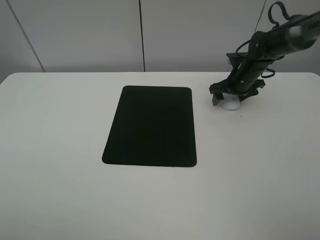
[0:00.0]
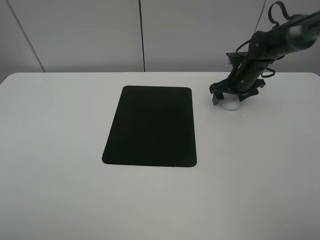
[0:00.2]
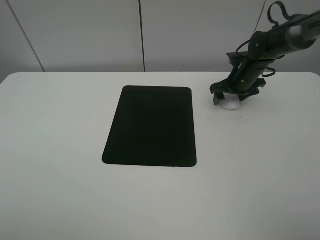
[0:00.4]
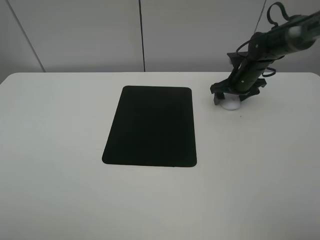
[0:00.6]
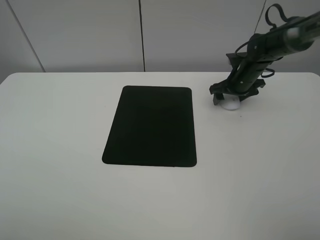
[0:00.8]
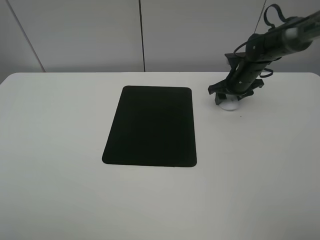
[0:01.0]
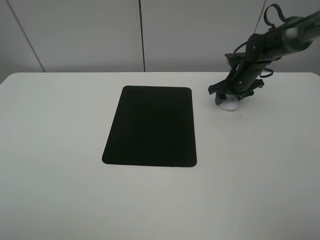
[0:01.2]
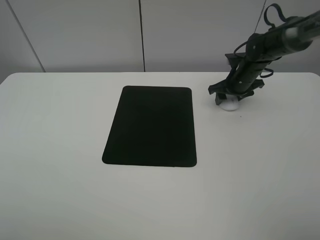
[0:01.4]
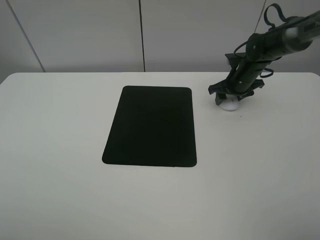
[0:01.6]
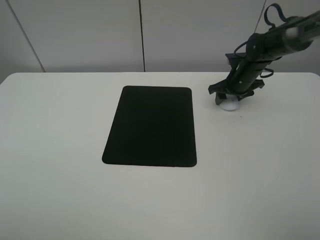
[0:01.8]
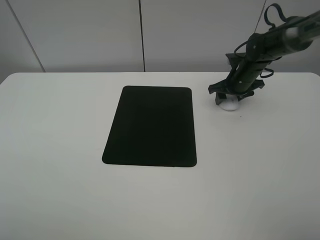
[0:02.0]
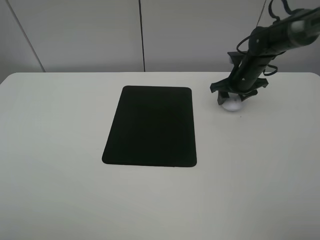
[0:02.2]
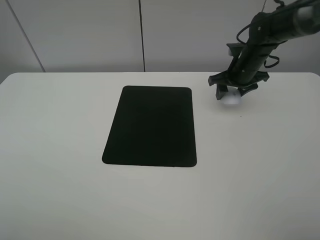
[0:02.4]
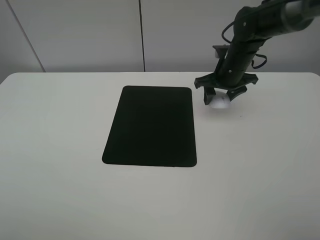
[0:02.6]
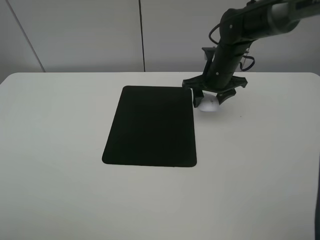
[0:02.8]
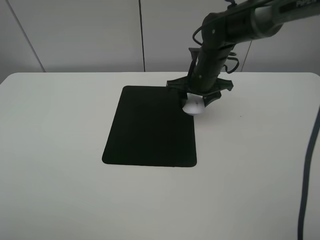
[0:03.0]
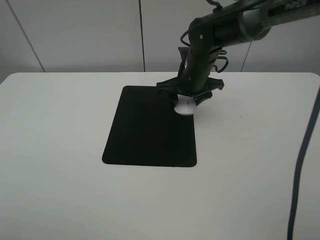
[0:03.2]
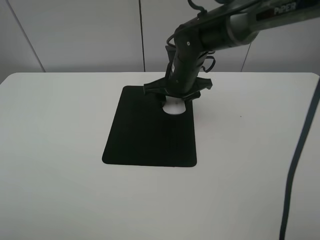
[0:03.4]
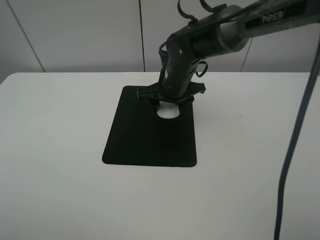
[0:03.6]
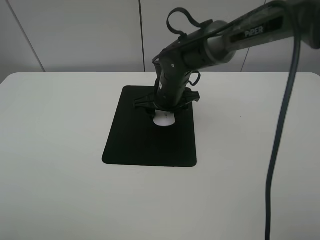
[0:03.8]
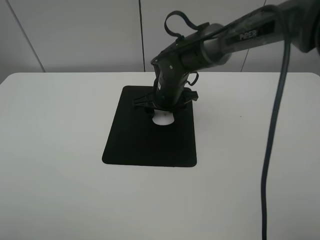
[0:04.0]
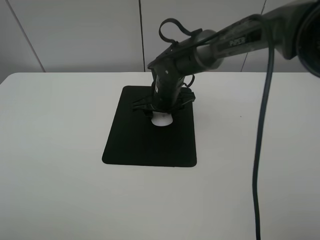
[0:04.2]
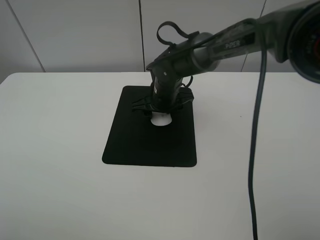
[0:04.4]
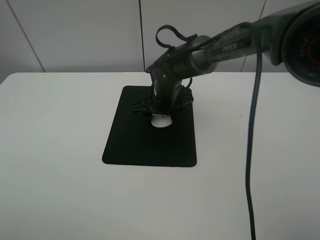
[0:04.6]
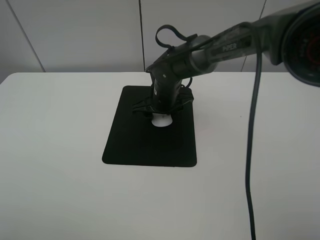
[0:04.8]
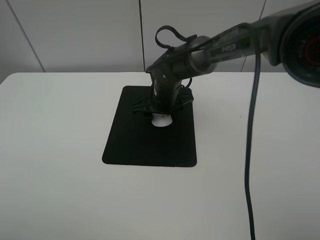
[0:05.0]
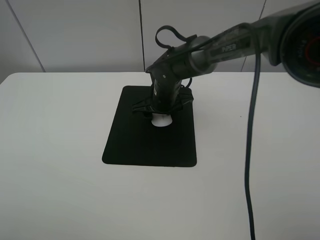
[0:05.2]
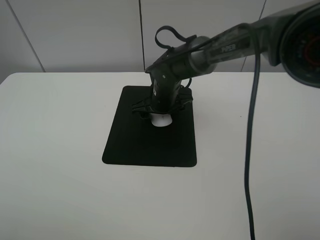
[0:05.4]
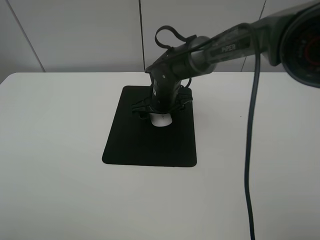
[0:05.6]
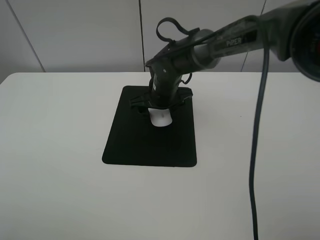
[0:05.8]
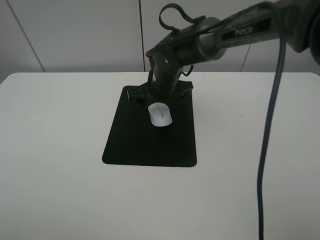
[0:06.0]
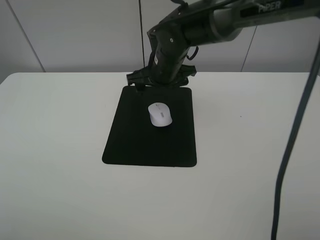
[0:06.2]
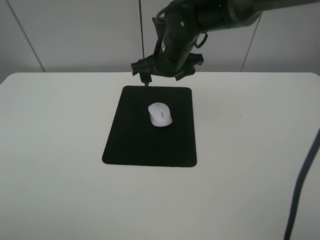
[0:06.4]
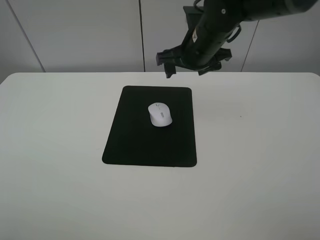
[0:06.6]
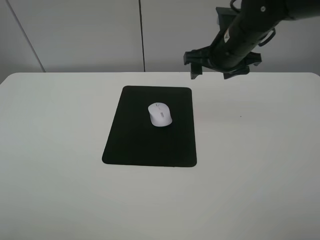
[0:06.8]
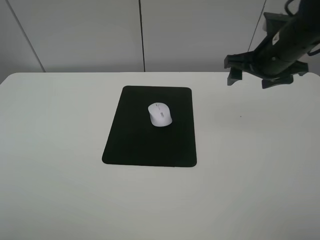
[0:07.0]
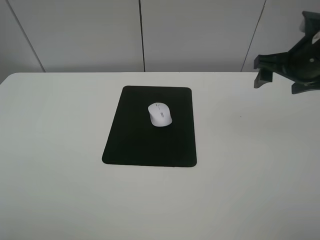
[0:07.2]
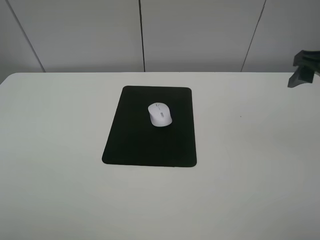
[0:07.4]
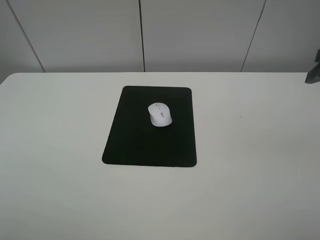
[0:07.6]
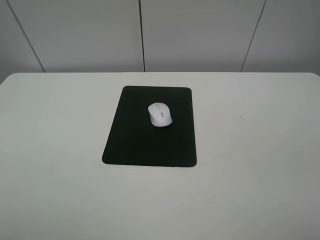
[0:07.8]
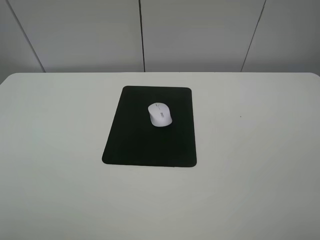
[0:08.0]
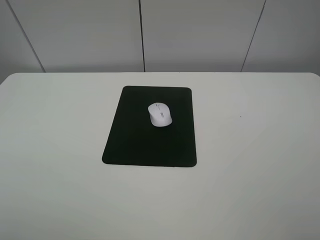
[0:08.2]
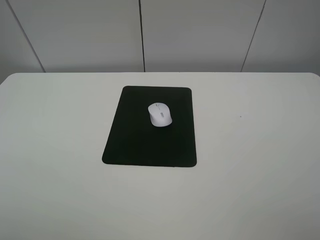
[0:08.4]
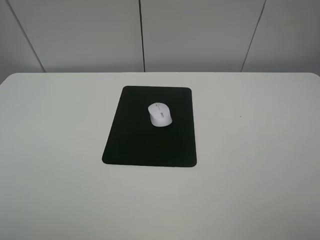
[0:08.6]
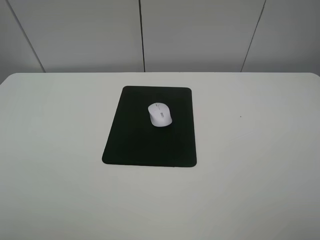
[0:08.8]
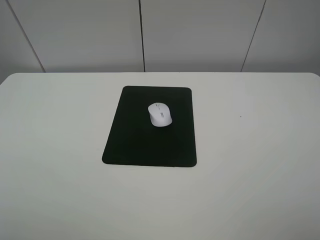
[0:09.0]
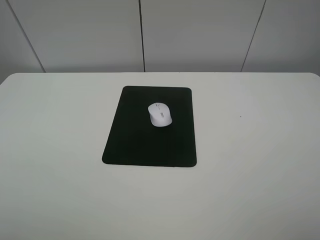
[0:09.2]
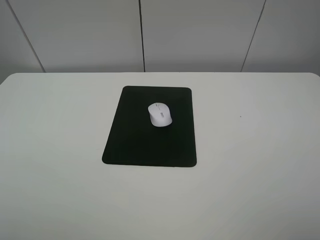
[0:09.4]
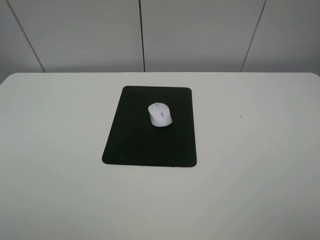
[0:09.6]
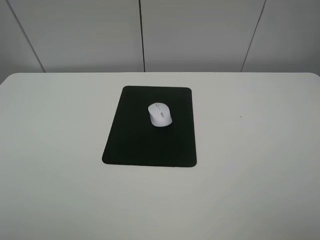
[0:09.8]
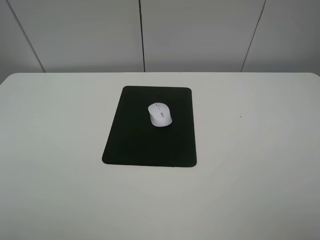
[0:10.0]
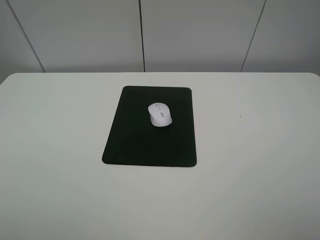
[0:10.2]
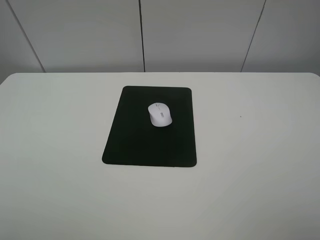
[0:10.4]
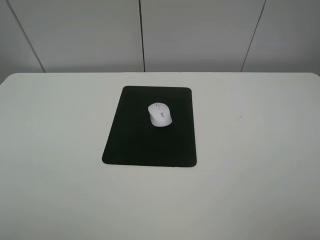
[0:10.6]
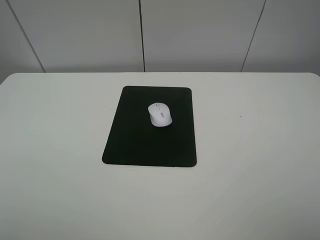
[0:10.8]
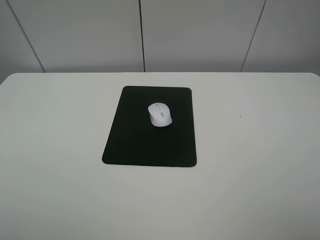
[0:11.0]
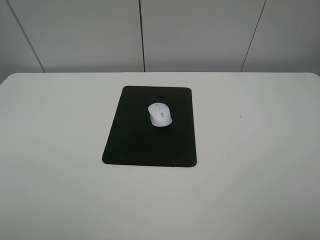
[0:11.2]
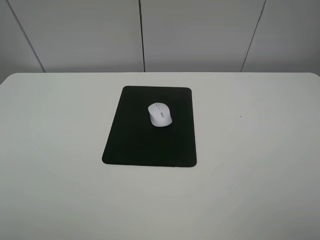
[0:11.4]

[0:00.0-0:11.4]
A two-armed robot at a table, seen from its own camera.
Step, 0:02.2 to 0:05.6: Place the mouse on the mouse mat with the right gripper.
0:00.0 to 0:01.4: The right gripper closes up.
0:01.4 to 0:02.8: The right gripper is displaced to the left and upward by roughly 10 cm.
0:02.8 to 0:04.2: The right gripper shifts approximately 10 cm to the left.
0:04.2 to 0:05.6: The right gripper opens.
0:05.6 to 0:07.2: The right gripper travels to the right and upward by approximately 30 cm.
0:07.2 to 0:08.6: The right gripper heads backward, covering some 25 cm.
0:10.0 to 0:11.4: Neither gripper changes place.
